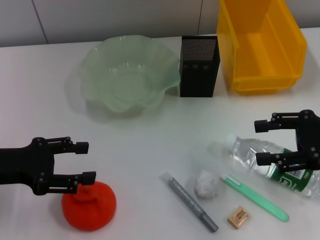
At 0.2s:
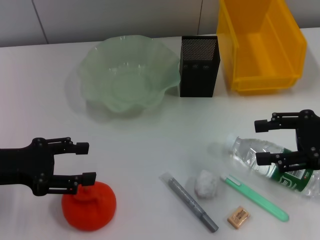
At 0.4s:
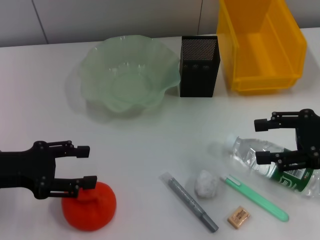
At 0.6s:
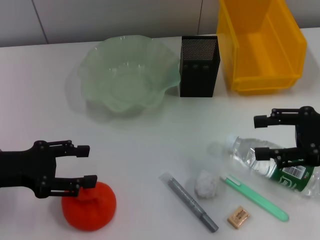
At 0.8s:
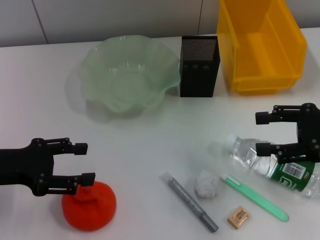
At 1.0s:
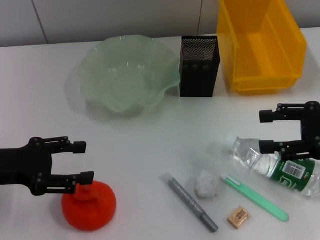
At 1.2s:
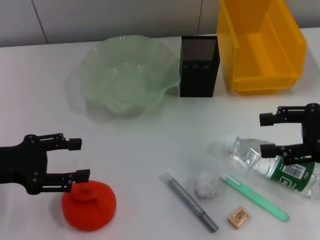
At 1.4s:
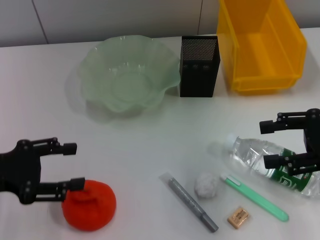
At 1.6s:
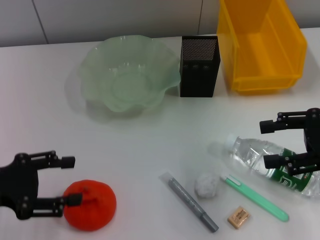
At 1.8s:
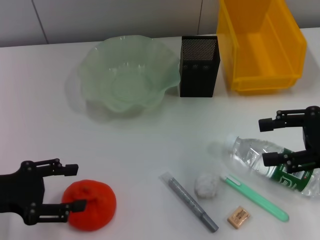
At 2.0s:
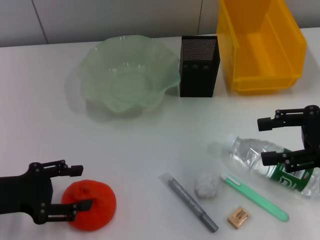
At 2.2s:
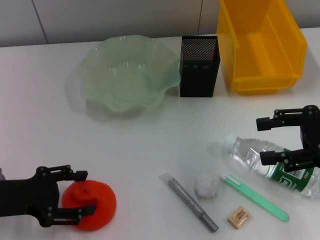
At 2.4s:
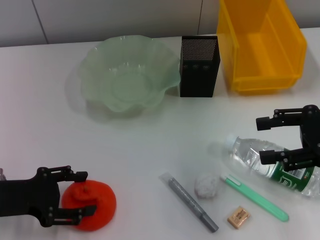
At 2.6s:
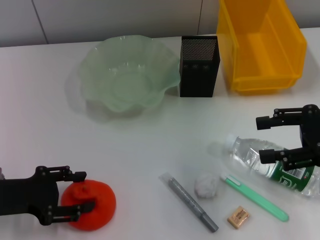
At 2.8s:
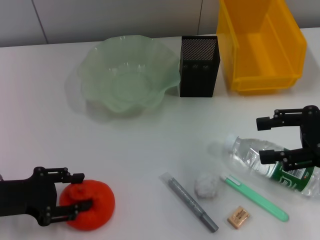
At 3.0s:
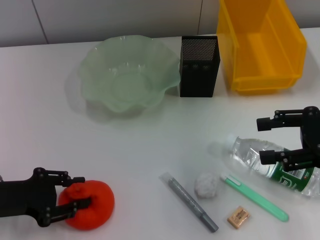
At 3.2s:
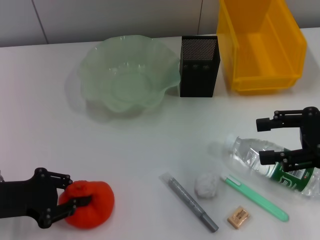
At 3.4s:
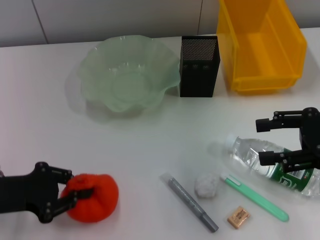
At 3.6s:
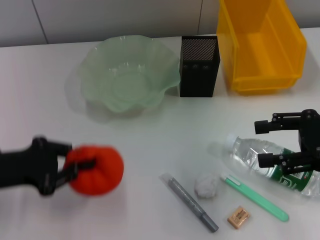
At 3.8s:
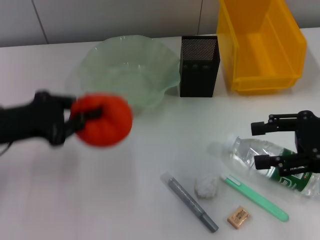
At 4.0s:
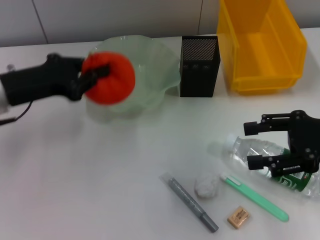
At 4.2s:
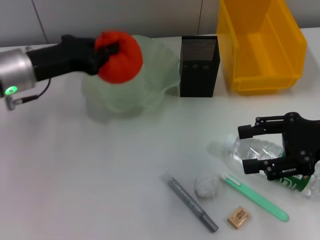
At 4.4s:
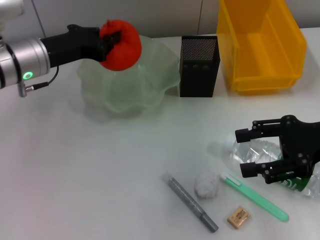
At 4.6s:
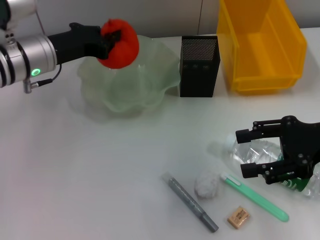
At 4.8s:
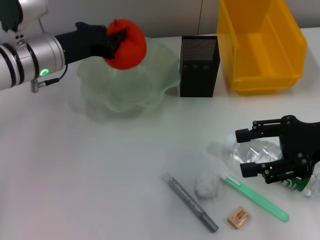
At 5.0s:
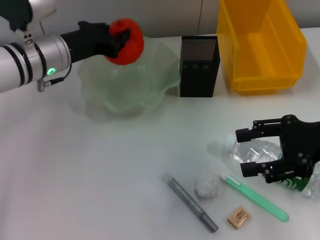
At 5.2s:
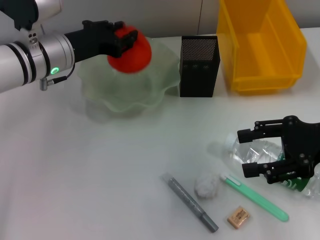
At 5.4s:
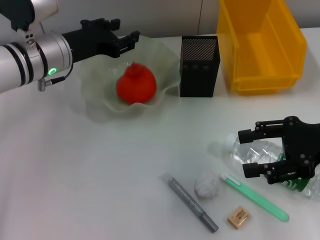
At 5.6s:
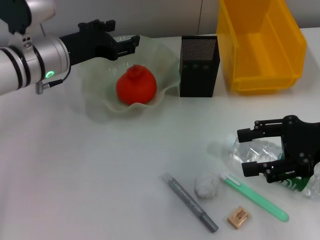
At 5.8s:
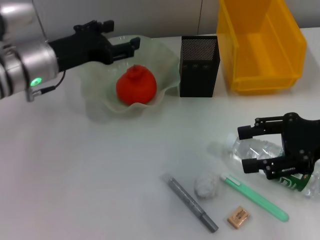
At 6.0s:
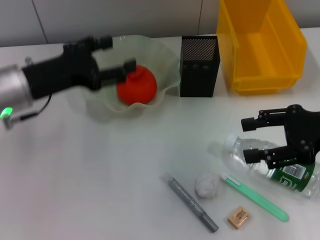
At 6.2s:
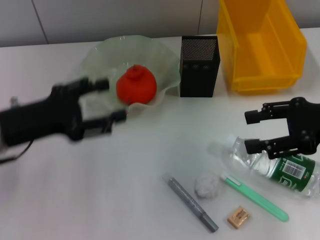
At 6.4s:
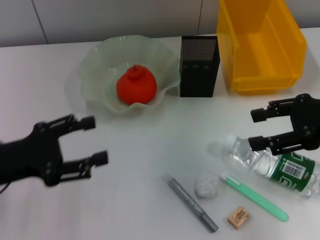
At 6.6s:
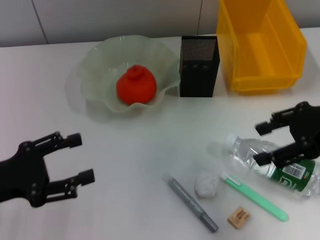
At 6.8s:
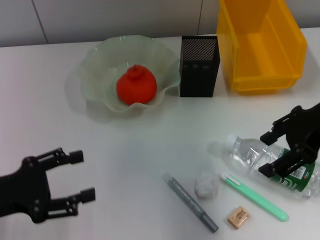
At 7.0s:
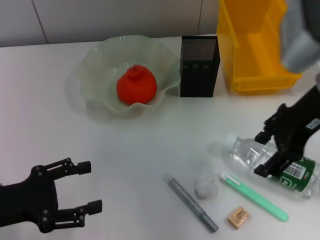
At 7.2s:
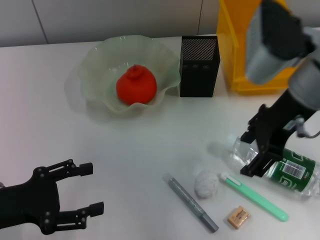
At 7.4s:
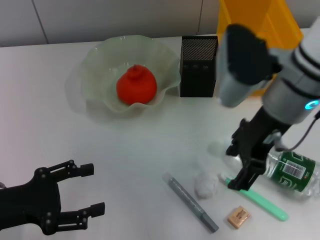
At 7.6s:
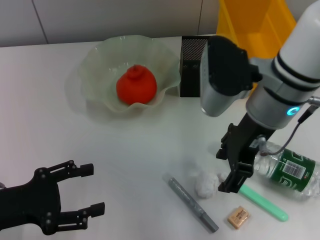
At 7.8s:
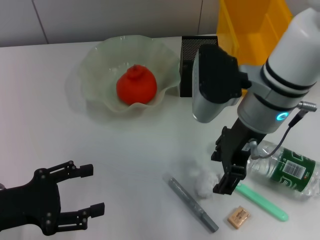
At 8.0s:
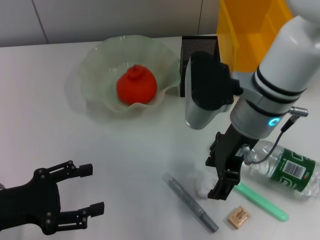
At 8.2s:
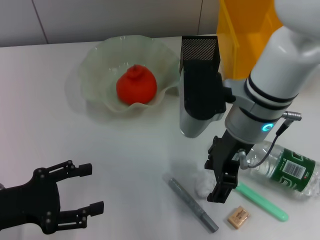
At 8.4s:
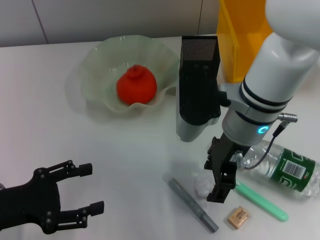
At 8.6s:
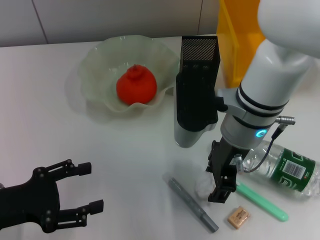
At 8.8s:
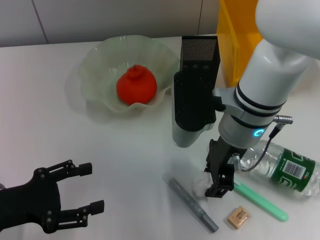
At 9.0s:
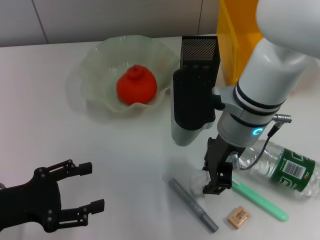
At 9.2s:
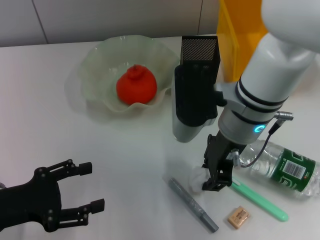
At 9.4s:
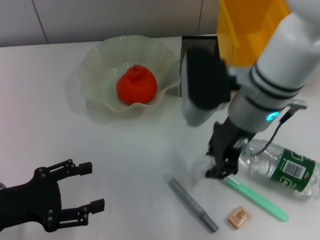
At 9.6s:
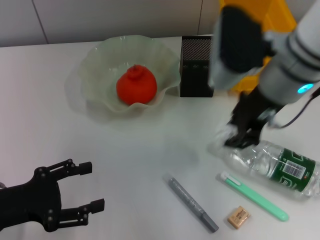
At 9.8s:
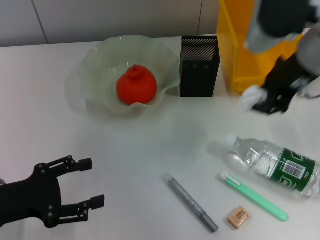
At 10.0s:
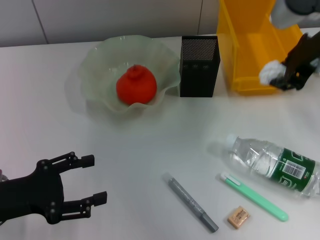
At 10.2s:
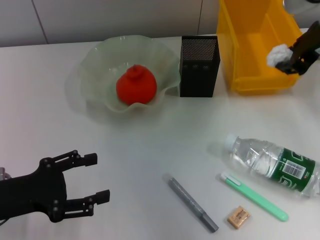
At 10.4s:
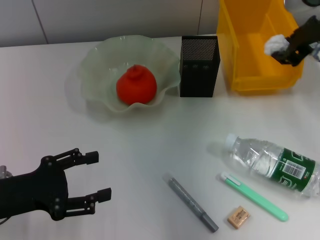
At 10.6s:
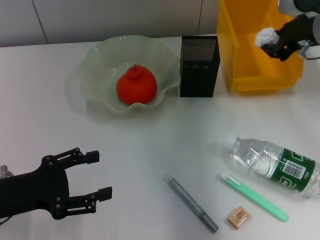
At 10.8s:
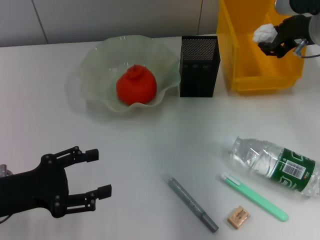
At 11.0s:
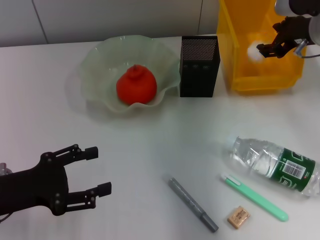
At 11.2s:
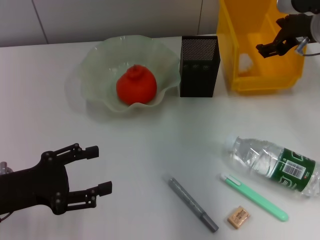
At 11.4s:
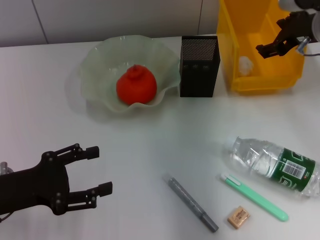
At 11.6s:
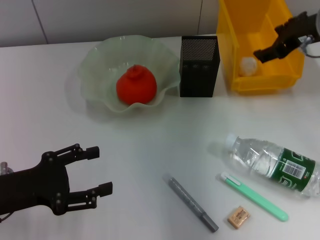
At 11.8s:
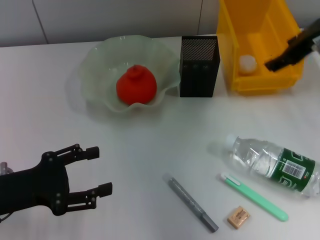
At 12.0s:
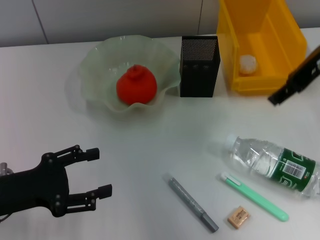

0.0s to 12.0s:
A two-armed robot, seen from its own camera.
Step, 0.0s to 3.0s: Grab the orange with the left hand.
Step, 3.2s to 5.8s: Place the orange into the fruit bowl with the left hand.
Step, 6.0s to 8.8s: Grab the paper ball with the right hand.
Step, 9.0s to 11.4s: Place the paper ball into the trash can with the right hand.
0.0s to 3.0s: There are only small adjustments of the grippers.
3.0s to 4.4s: The left gripper heads forward, to the right and upward, covering about 20 cm, and closes its fingers.
4.4s to 6.0s: The left gripper moves backward, some 5 cm, and opens up.
6.0s to 7.6s: The left gripper is displaced backward, to the left and downward by about 15 cm; the right gripper goes approximately 15 cm to the left.
7.6s to 9.0s: The right gripper closes its fingers.
9.0s to 10.4s: The right gripper goes approximately 15 cm to the right and forward.
10.4s to 12.0s: The right gripper changes place by approximately 5 cm, and opens up.

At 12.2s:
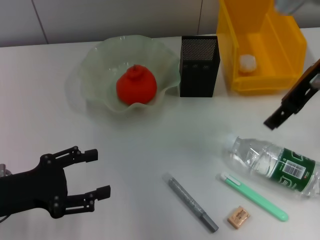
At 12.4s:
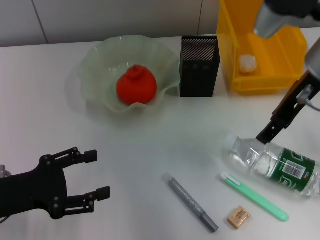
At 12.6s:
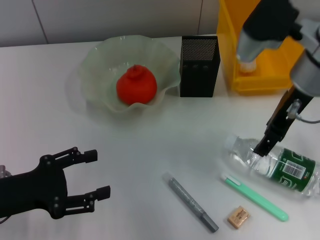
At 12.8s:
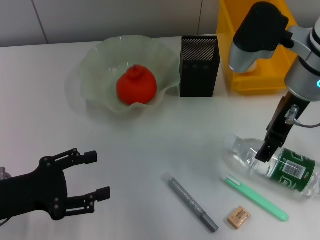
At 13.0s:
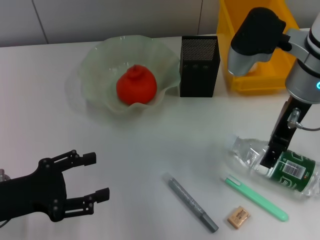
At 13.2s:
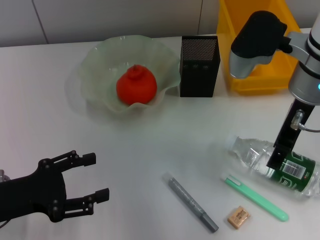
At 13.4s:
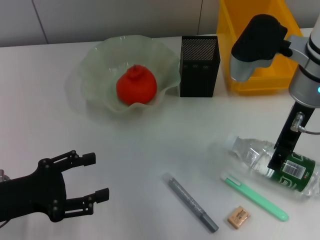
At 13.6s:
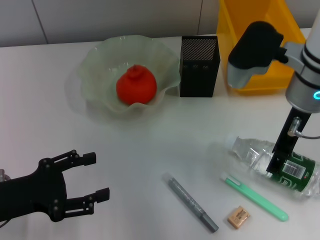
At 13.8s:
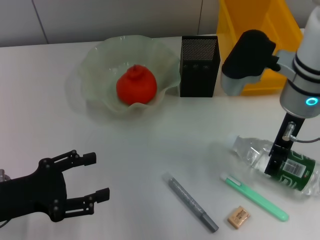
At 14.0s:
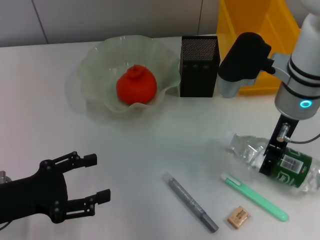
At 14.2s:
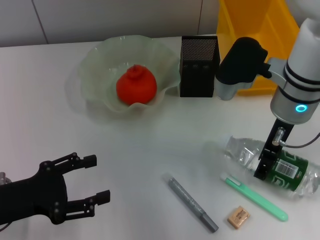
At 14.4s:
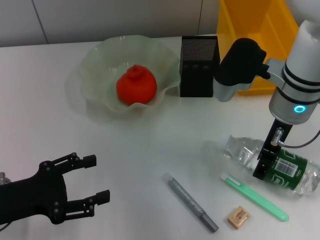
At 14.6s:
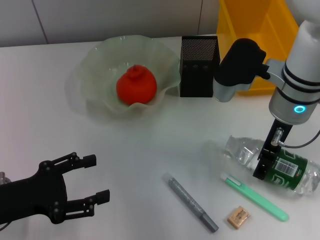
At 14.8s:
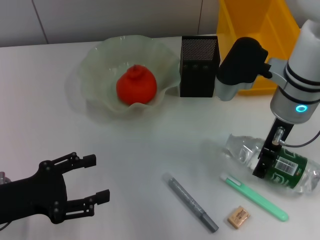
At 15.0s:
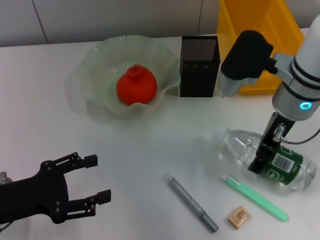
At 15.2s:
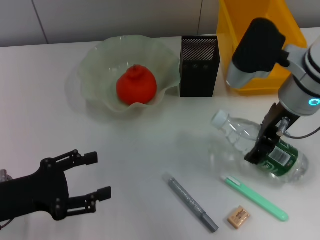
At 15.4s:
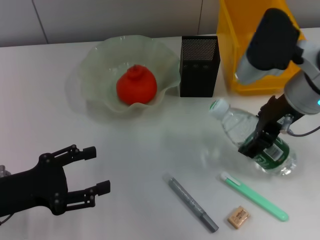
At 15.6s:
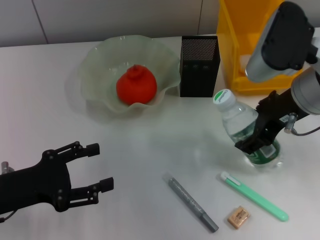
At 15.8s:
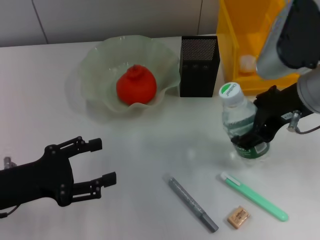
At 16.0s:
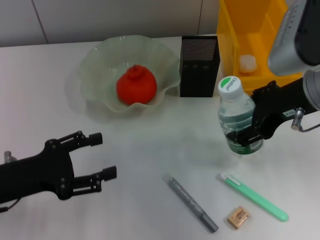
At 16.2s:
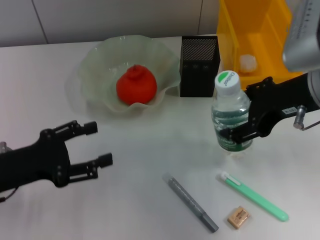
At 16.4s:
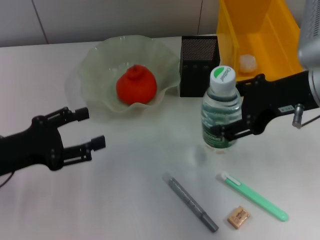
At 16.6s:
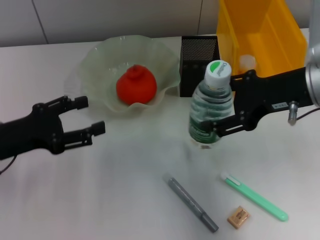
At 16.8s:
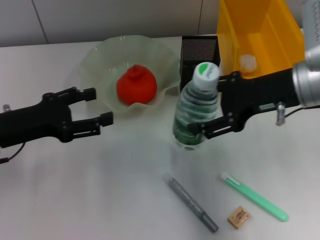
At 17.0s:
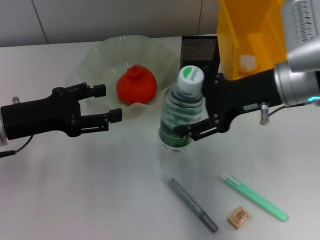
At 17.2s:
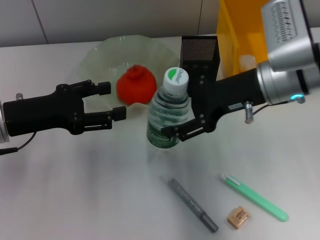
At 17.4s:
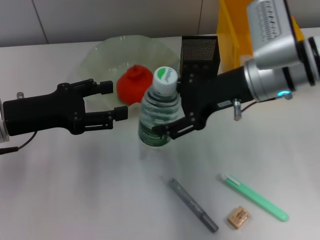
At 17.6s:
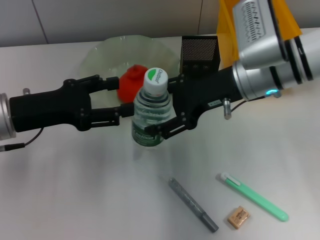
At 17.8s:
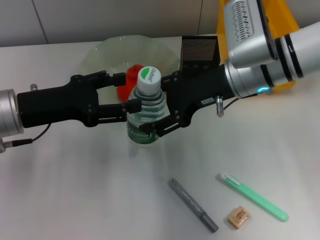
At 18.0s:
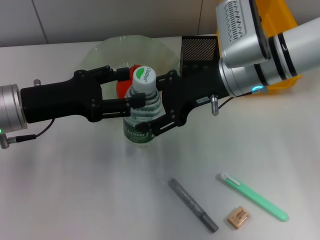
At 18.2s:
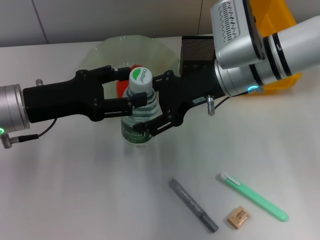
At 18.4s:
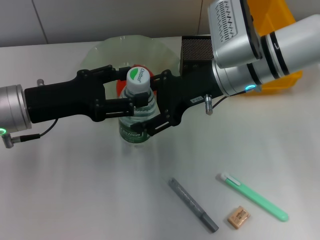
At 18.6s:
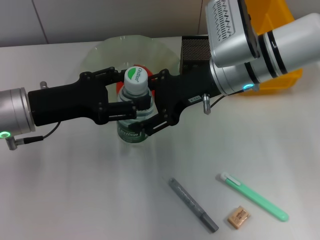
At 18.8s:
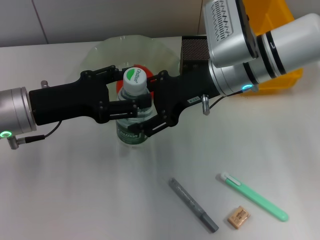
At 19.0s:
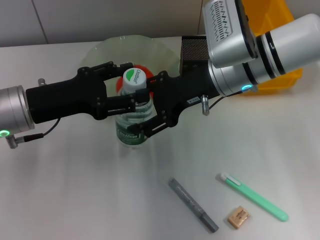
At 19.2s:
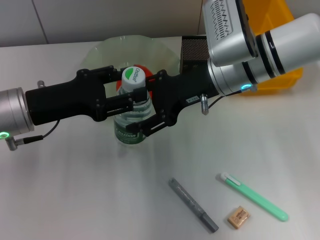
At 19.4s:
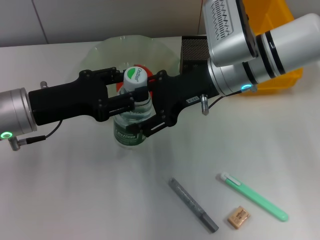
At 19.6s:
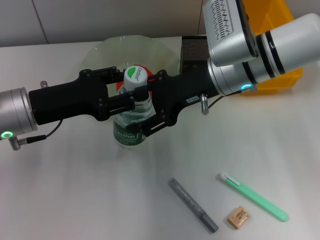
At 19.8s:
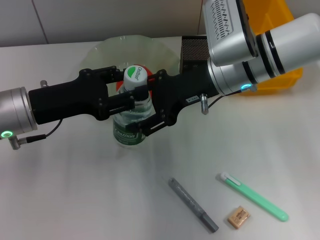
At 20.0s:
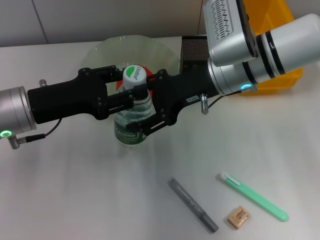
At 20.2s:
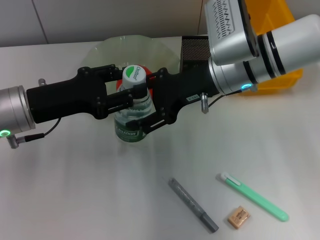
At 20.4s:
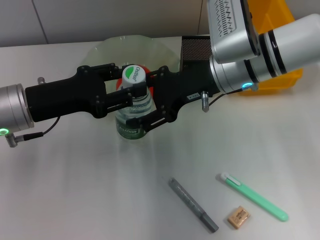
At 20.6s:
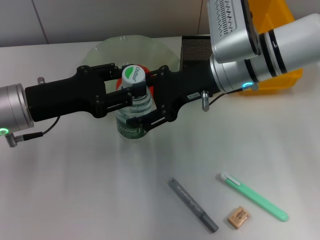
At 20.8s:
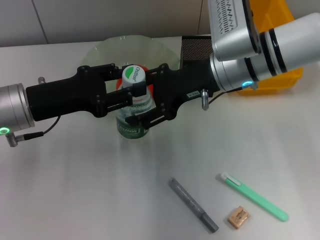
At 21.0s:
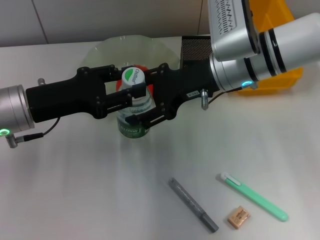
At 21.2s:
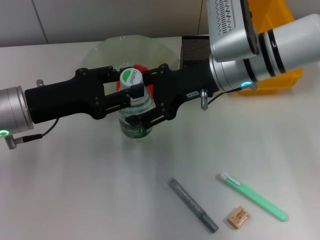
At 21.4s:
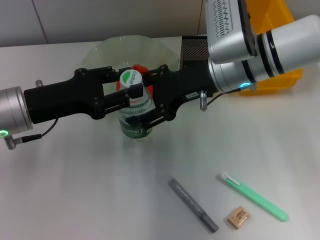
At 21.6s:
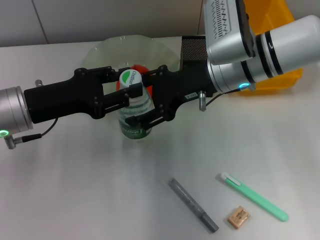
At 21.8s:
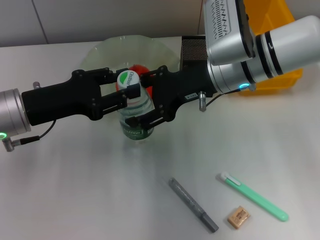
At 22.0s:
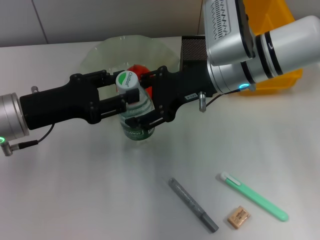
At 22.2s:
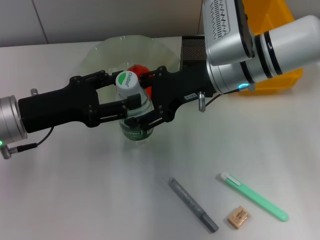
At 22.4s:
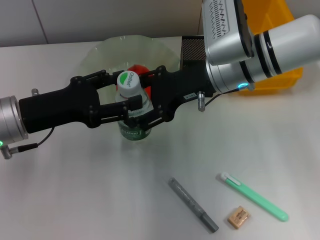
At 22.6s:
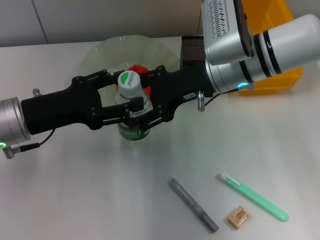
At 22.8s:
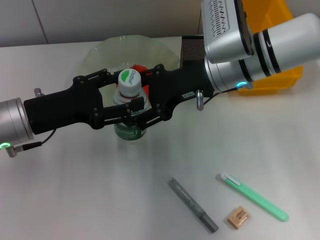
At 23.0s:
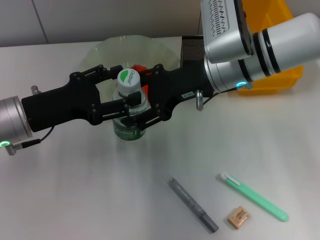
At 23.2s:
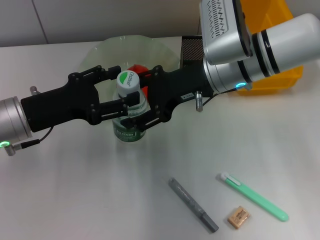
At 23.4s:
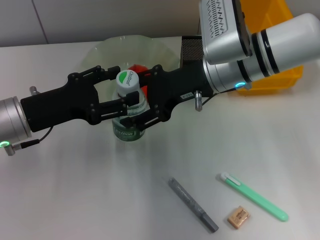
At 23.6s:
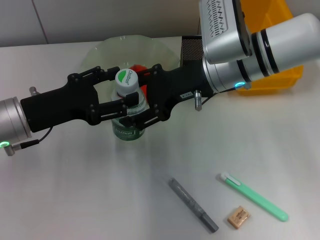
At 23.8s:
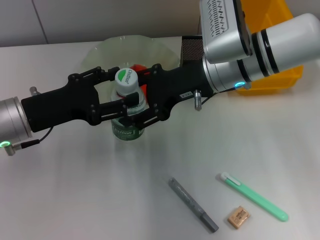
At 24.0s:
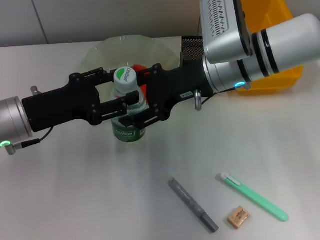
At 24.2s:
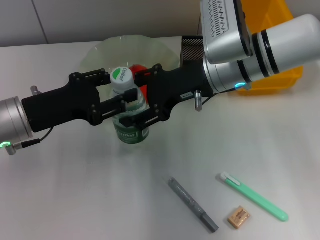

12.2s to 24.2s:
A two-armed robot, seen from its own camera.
Step, 12.2s to 14.6s: Grab the water bottle with the right hand.
12.2s to 13.8s: The right gripper is displaced downward by some 5 cm.
13.8s to 15.2s: The grippers move only a little.
15.2s to 16.6s: The left gripper changes place by about 5 cm, while the right gripper ends up some 5 cm from where it was.
16.6s to 18.2s: The right gripper goes approximately 10 cm to the left and forward. The left gripper shifts approximately 10 cm to the right and forward.
18.2s to 19.8s: The left gripper closes.
19.8s to 21.2s: Neither gripper changes place.
21.2s to 22.6s: The left gripper opens.
22.6s to 24.2s: There are only small adjustments of the grippers.
